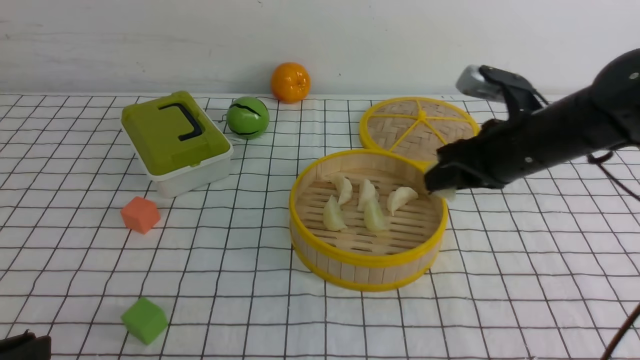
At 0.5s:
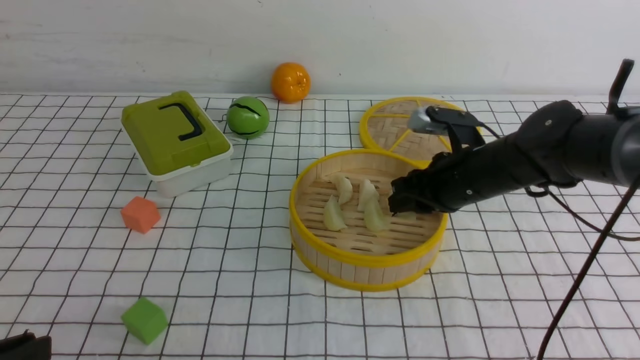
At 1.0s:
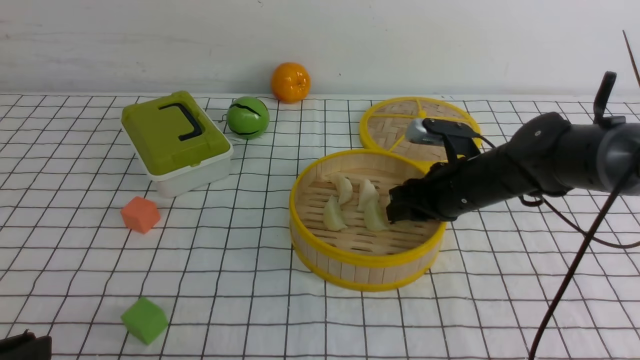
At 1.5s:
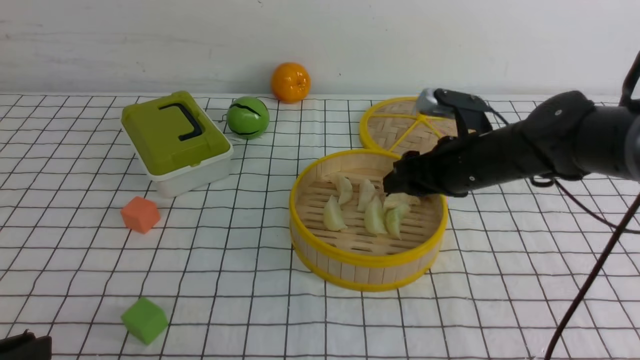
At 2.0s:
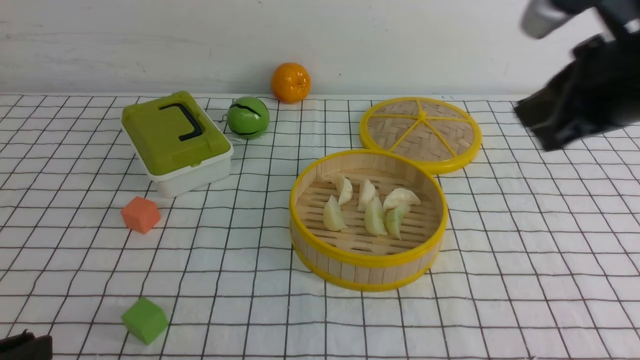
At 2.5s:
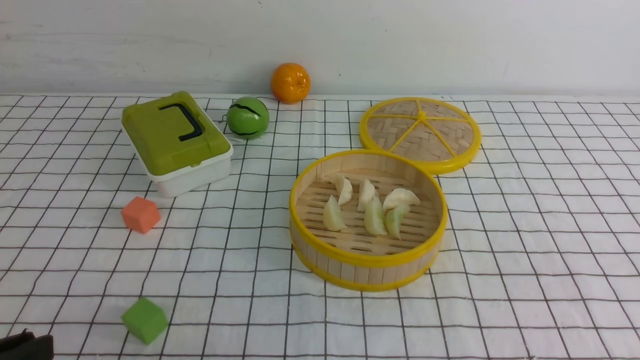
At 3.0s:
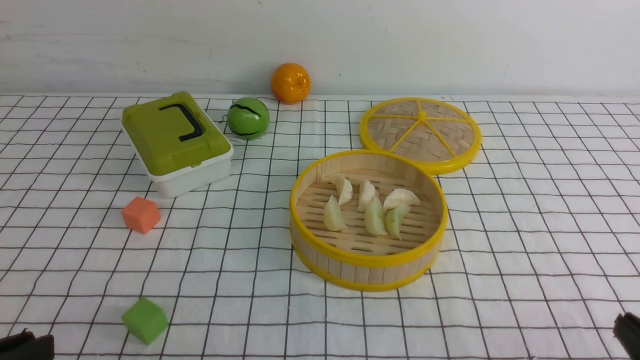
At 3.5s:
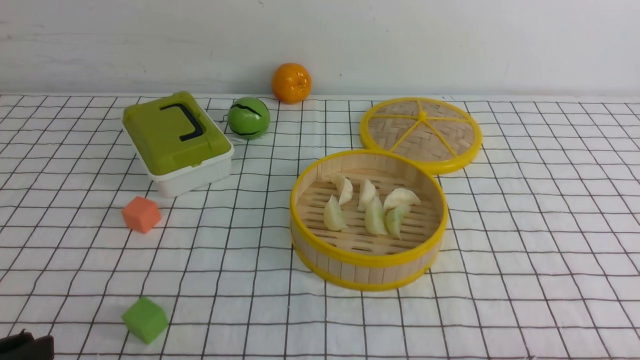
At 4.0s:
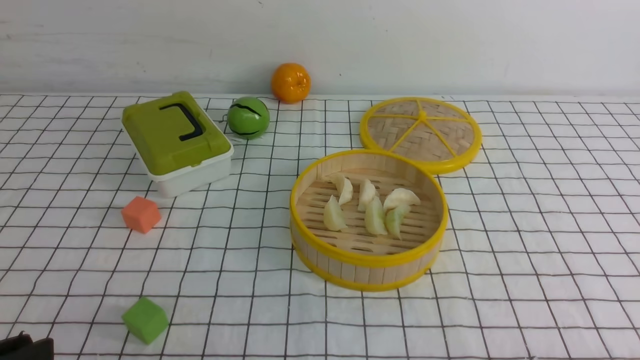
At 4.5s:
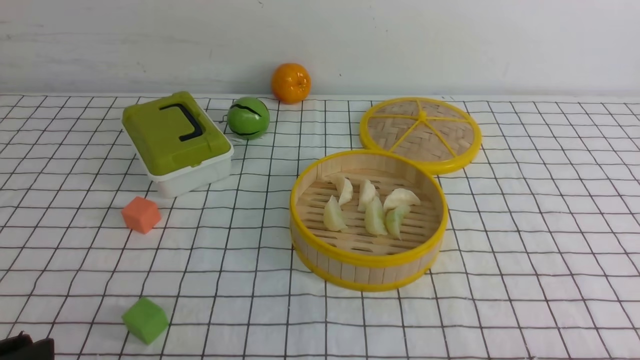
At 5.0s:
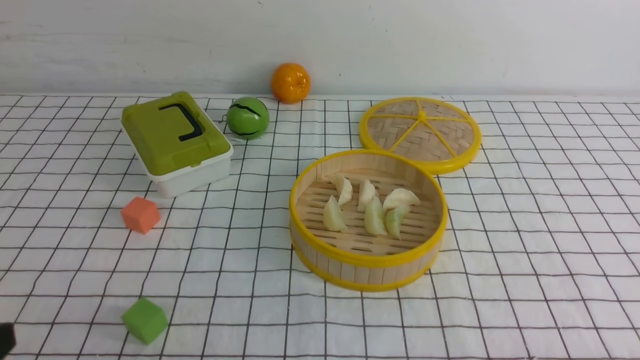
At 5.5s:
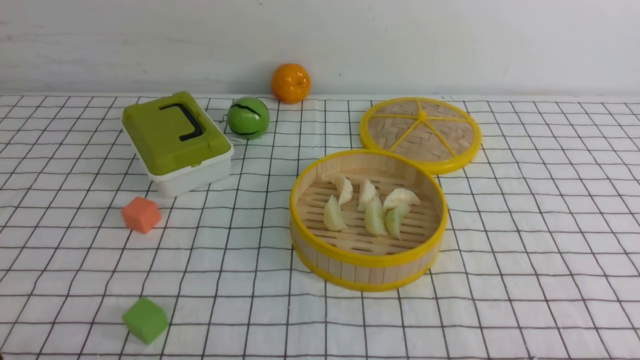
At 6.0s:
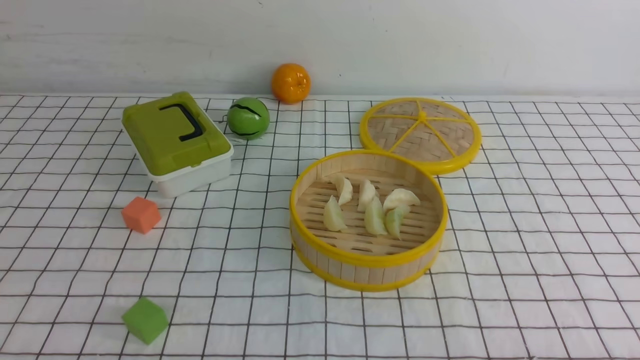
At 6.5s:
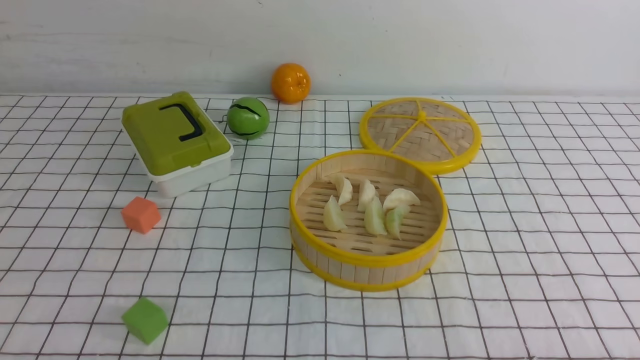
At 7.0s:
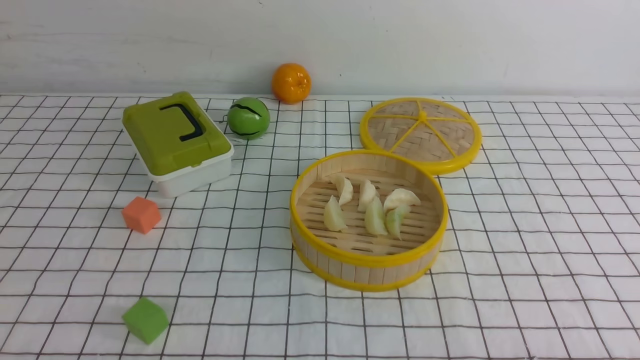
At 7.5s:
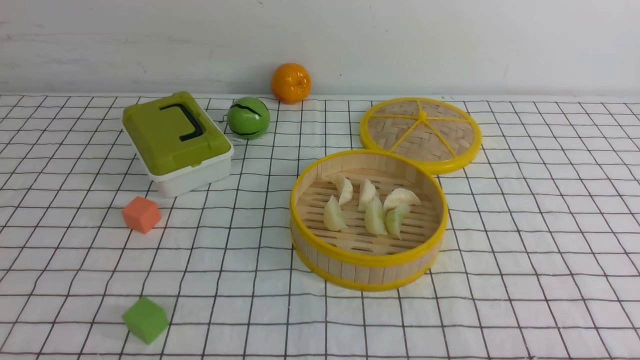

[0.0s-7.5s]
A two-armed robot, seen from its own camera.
Task of the whole recording: put the dumplings into the steamer on the table with the white tablecloth.
Step, 0.5s to 2.0s: use the right arm to put the dumpling into the steamer.
0.0s to 2.0s: The right gripper heads upward and backward, covering about 20 cm, and opens and closes again.
2.0s to 4.0s: The right gripper moves downward and backward, about 30 cm.
